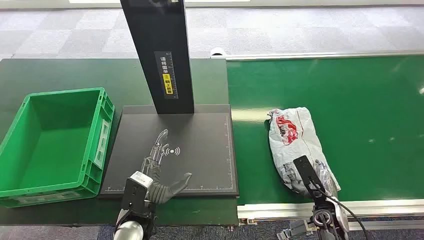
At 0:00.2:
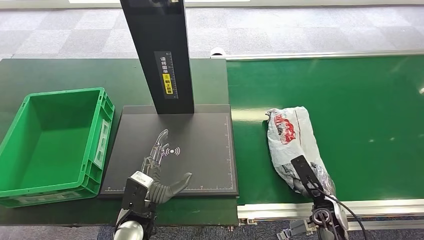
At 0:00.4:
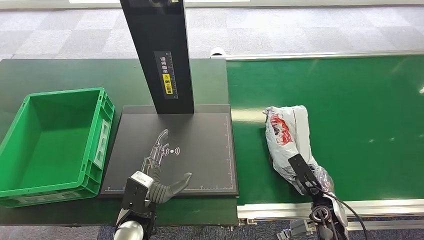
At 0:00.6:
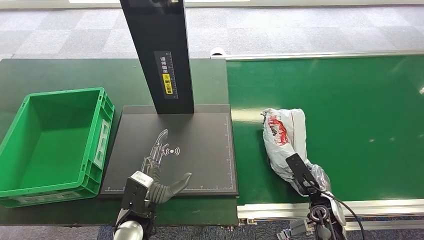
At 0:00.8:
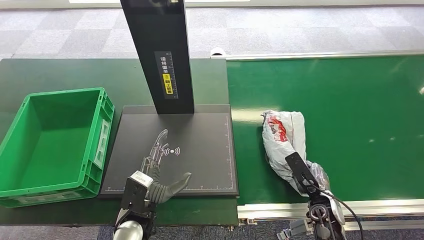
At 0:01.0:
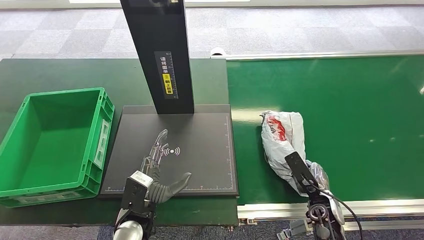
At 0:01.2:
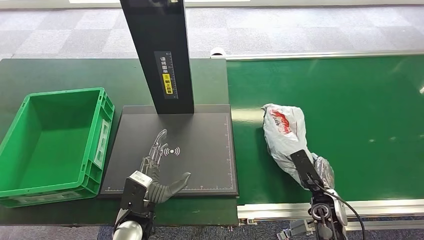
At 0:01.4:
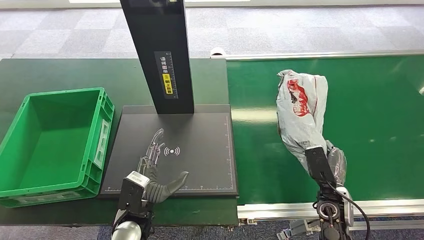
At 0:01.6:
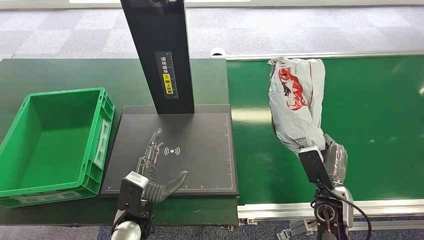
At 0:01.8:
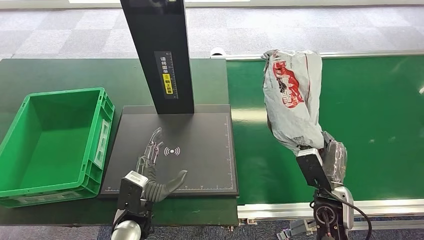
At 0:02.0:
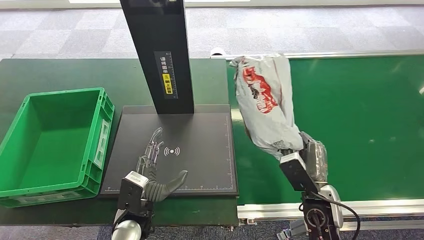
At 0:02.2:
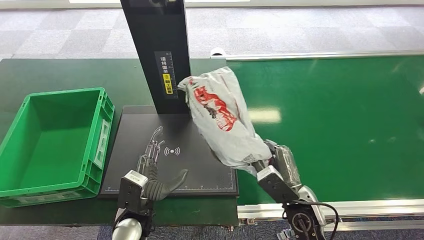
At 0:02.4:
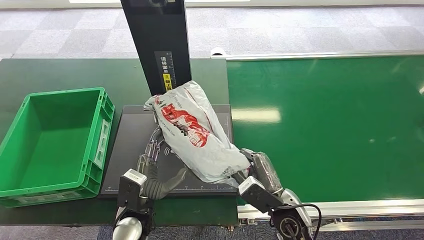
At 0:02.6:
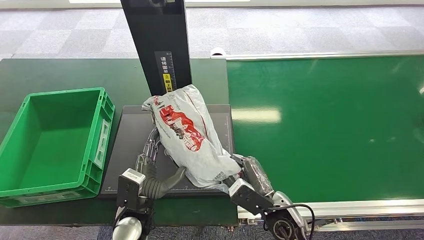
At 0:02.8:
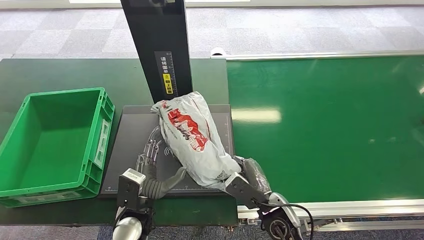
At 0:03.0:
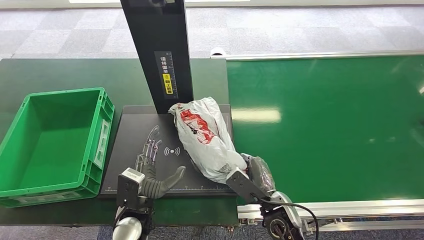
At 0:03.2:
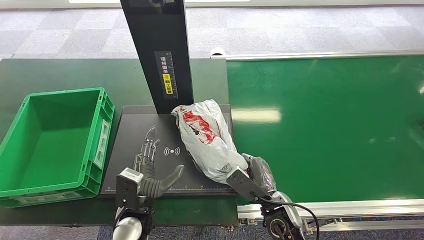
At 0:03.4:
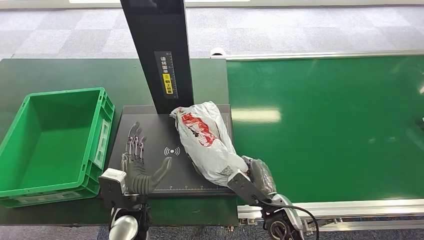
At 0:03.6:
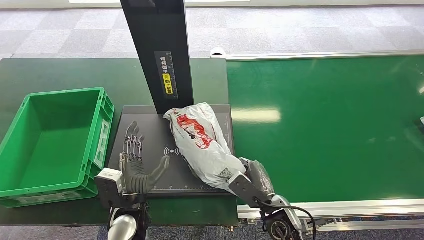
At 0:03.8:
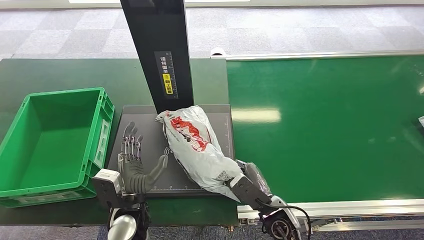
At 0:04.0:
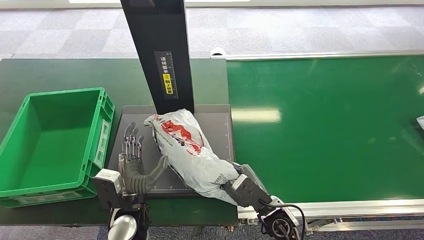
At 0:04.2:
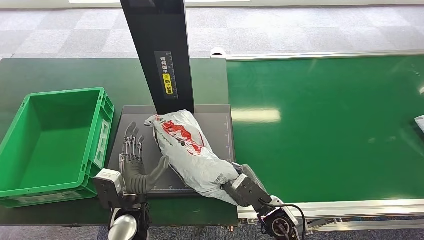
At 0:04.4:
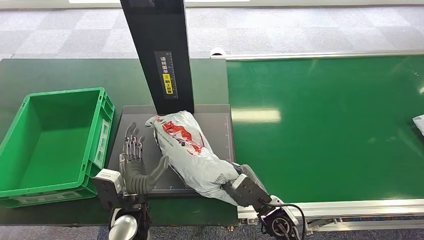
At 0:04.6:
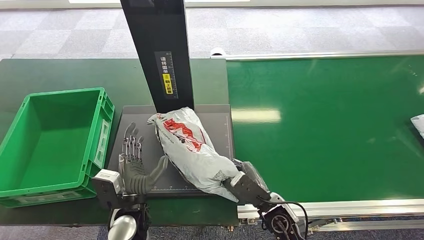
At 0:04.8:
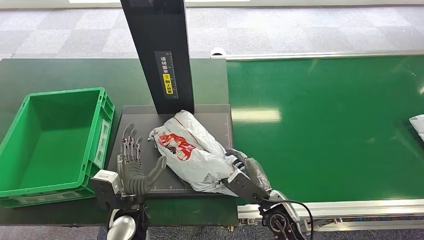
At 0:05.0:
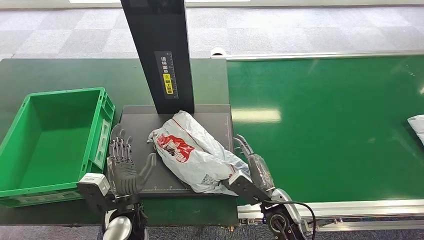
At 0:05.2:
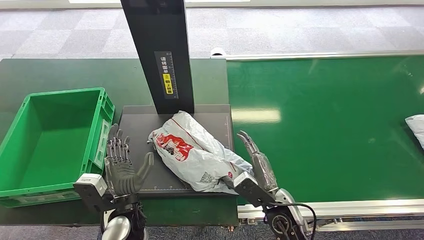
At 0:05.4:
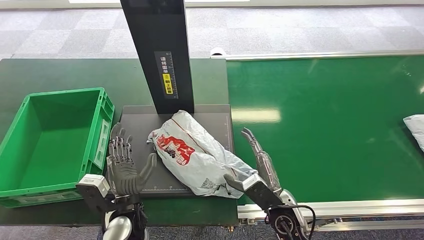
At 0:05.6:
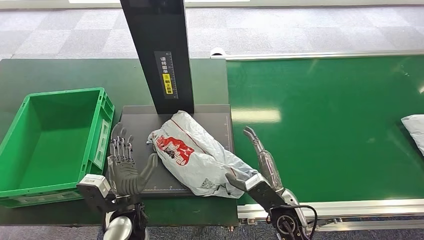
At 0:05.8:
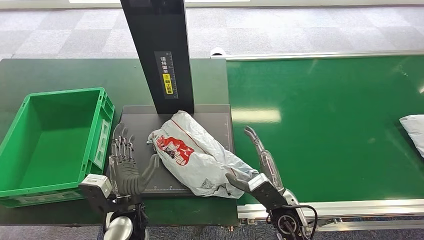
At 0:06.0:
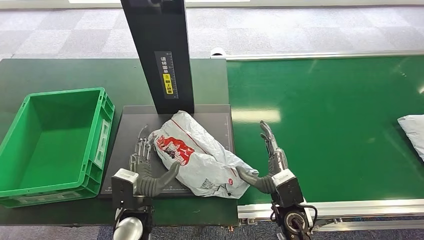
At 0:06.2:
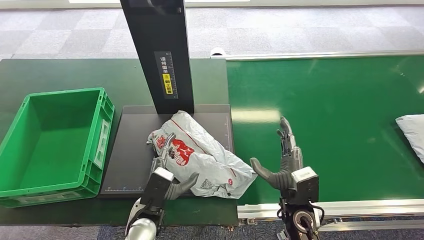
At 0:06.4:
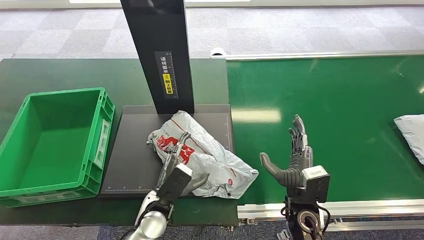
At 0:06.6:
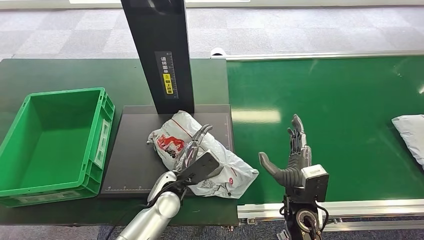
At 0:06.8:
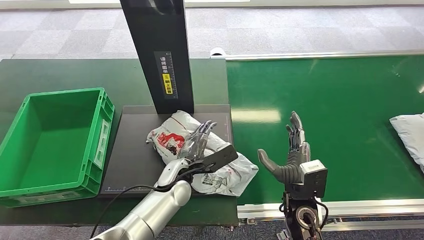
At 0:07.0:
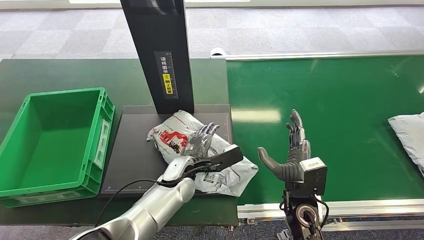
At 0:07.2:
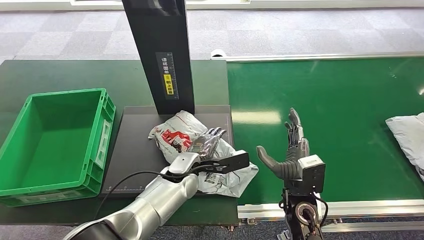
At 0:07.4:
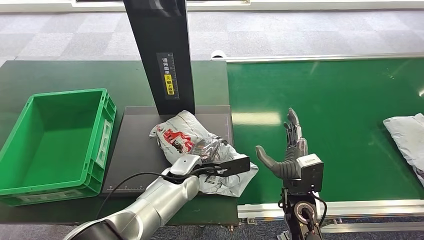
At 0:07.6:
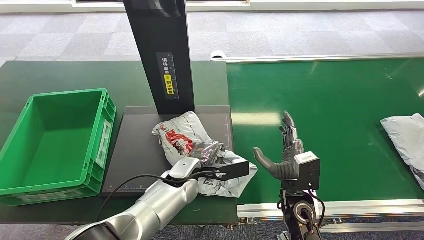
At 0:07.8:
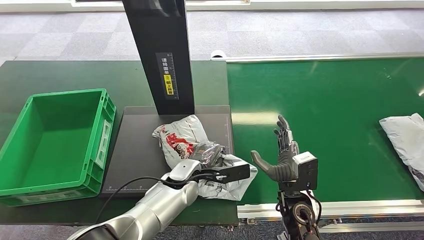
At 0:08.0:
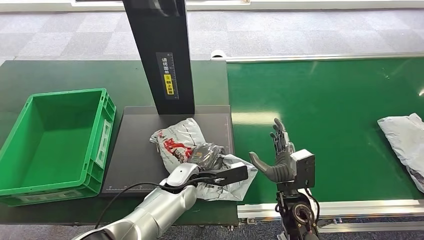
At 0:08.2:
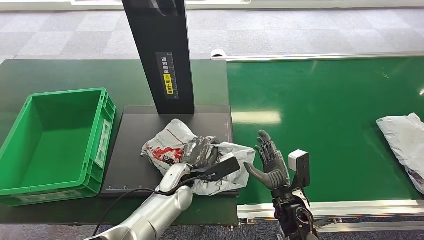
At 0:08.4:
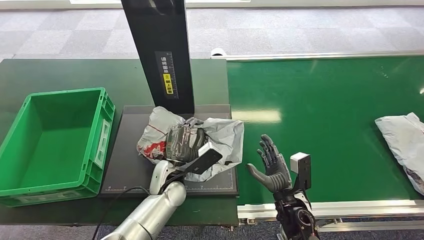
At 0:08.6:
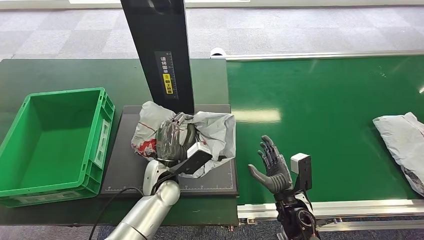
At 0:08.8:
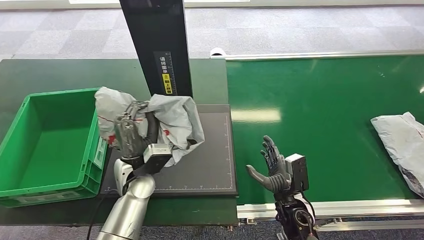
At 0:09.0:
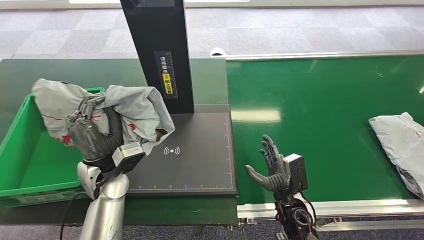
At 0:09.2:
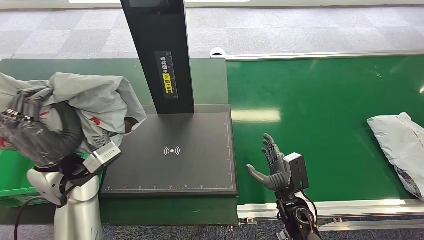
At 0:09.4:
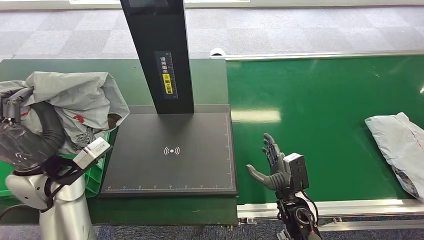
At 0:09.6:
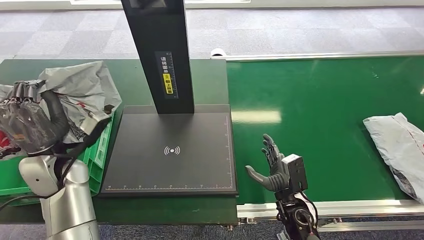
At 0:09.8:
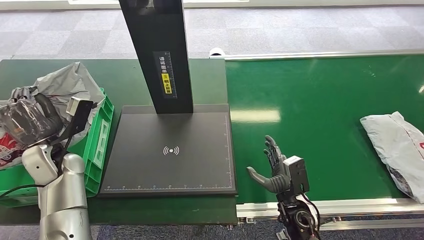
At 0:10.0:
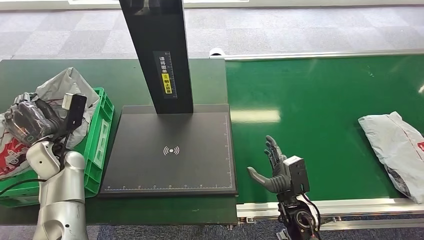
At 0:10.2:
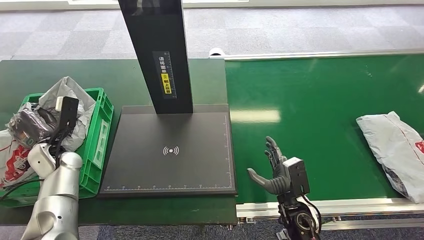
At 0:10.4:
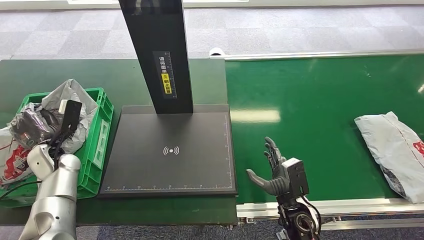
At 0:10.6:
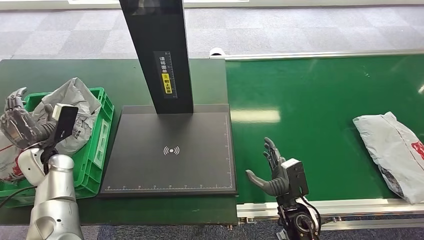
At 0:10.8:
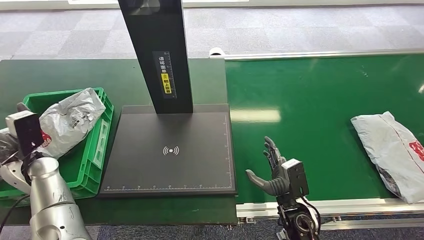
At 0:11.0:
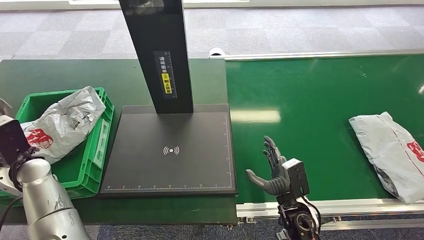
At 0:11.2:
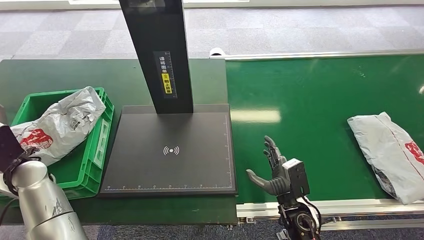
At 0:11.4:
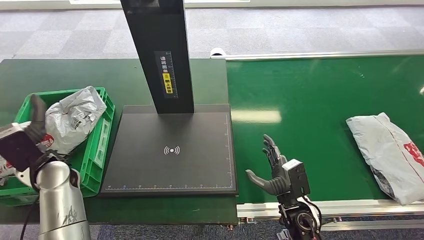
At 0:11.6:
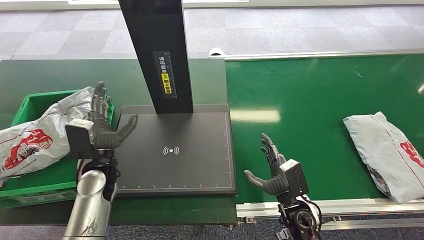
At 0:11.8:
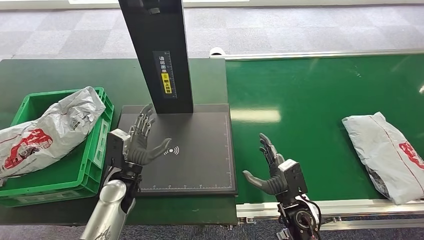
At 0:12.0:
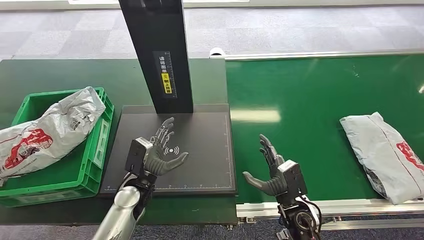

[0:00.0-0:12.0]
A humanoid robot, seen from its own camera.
Step, 0:00.0 to 0:01.2: Pick up the package from the conveyor belt.
Step, 0:01.4 to 0:06.2: Place the package onto the inbound machine.
Step, 0:06.6 to 0:09.0: Pick up the package from the inbound machine.
Step, 0:09.2 to 0:11.8: Place the package into the parcel locker.
0:01.6 to 0:03.0: The right hand is displaced to the left by about 10 cm.
0:10.4 to 0:12.0: The left hand is displaced to the right by roughly 20 cm.
